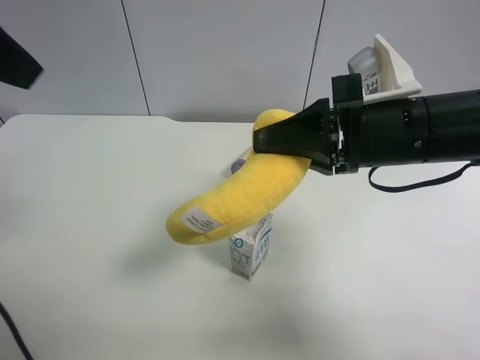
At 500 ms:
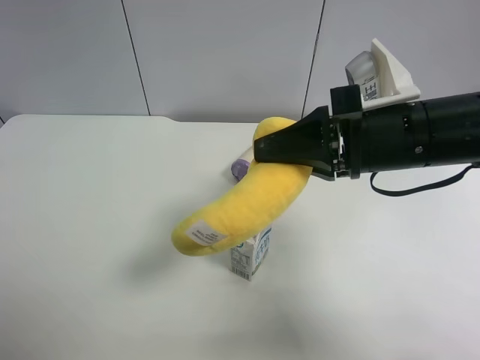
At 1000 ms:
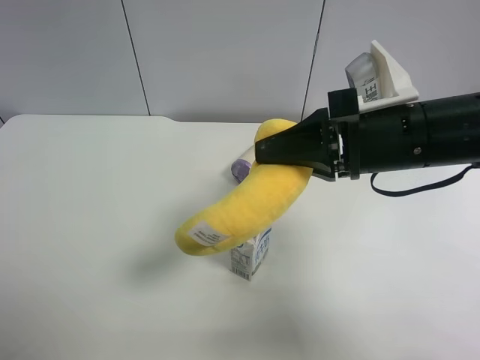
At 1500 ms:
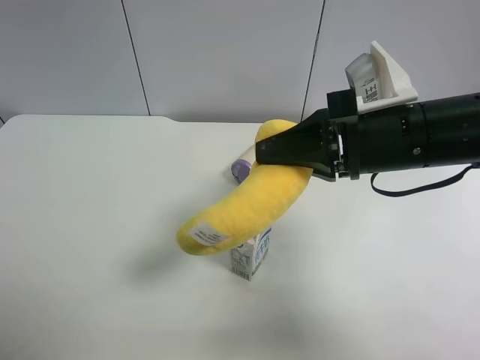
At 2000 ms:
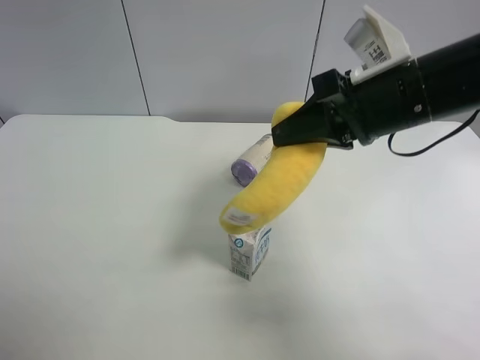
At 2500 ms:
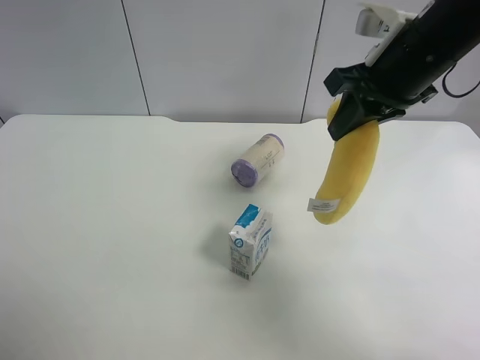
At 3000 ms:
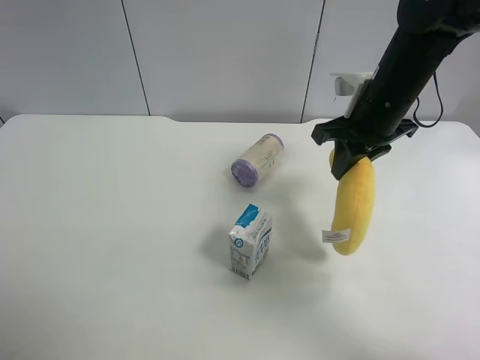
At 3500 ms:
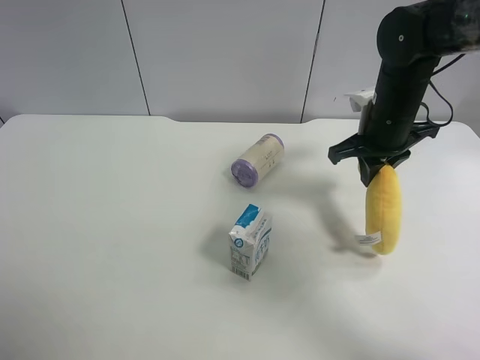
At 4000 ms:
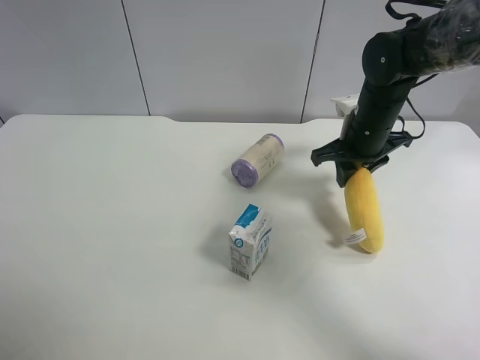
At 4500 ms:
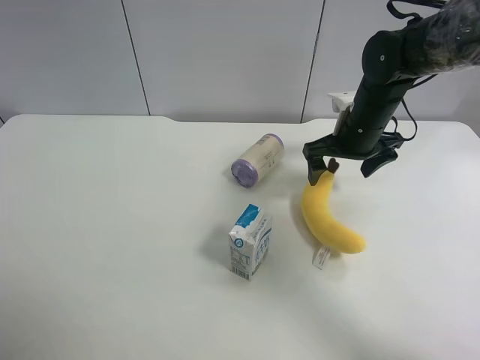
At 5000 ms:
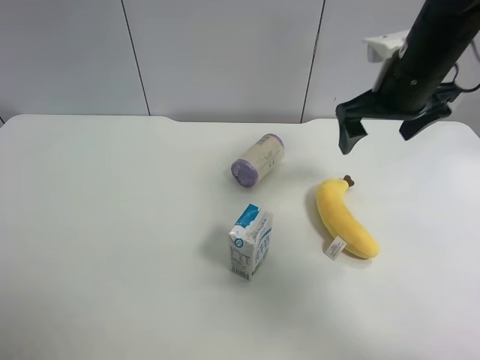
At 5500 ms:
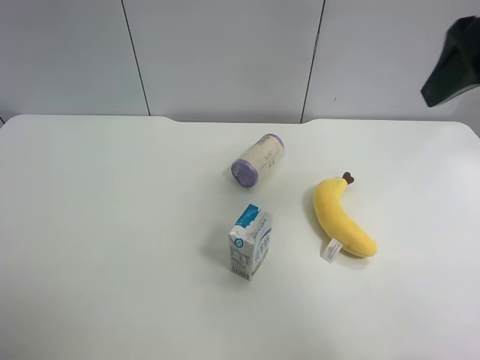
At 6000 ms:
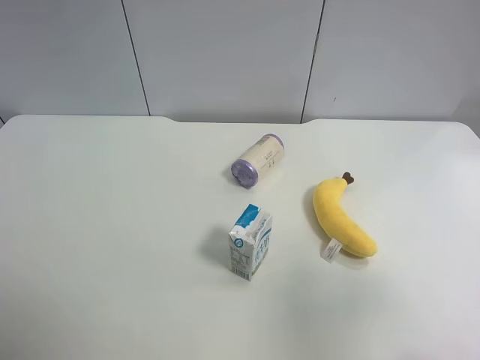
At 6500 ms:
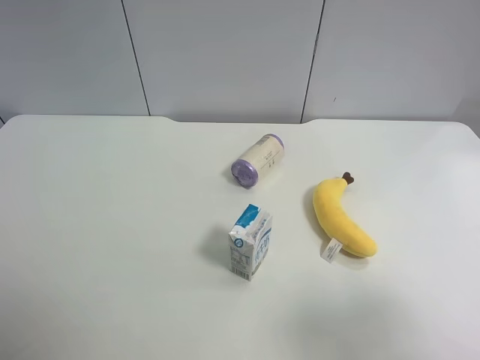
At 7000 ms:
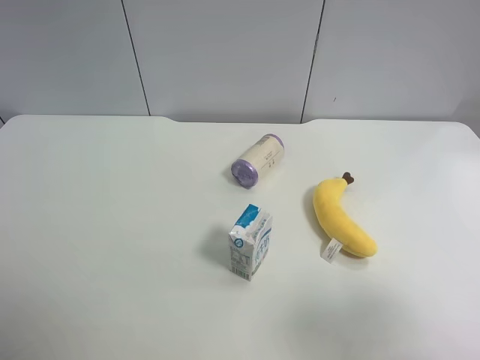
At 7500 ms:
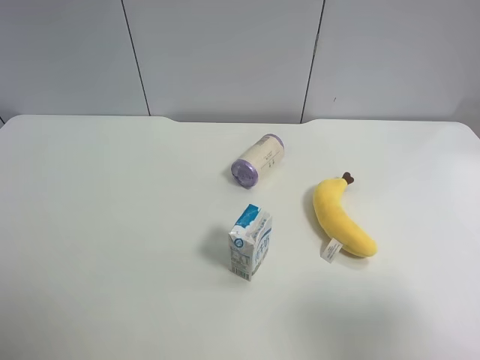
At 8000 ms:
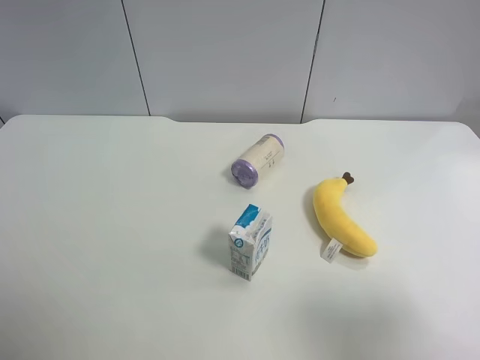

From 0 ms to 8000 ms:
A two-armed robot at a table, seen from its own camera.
Task of the whole recording: use the left gripper to pick up the item and transfer it from the left gripper to the right gripper.
From 0 ms to 2000 ms: The left gripper moves backward, downward and to the left, roughly 25 cm.
From 2000 ms to 4000 ms: The right gripper goes roughly 15 cm forward and downward, and opens up.
From 4000 ms to 6000 ms: The right gripper shifts approximately 35 cm backward and upward, and opens up.
